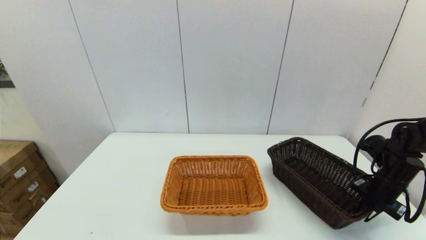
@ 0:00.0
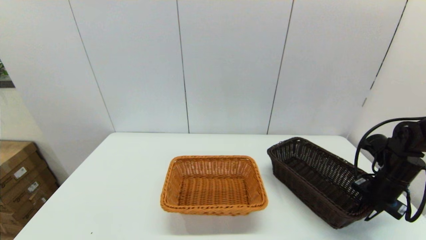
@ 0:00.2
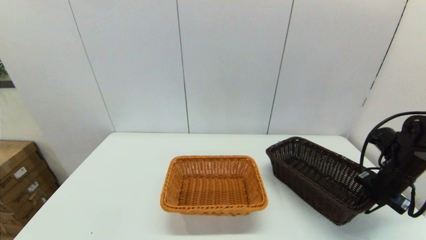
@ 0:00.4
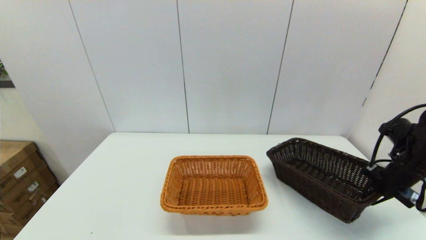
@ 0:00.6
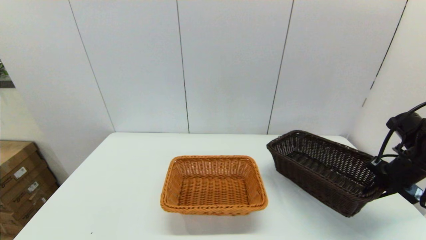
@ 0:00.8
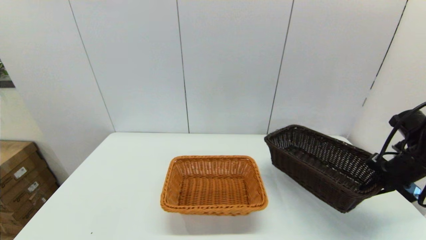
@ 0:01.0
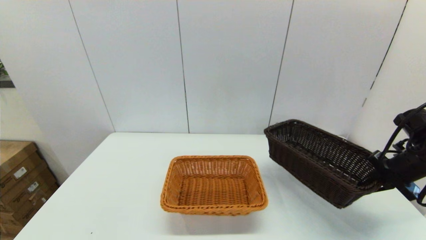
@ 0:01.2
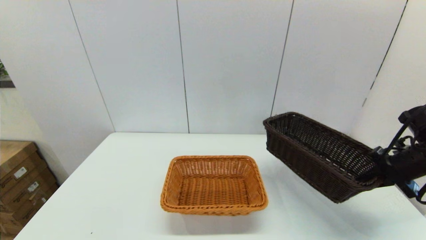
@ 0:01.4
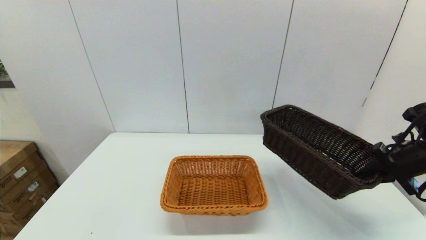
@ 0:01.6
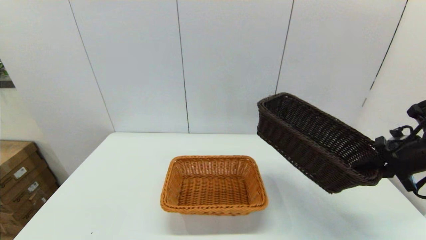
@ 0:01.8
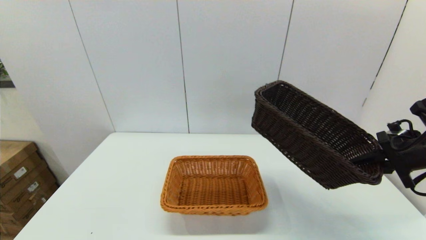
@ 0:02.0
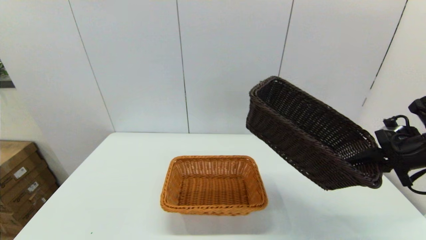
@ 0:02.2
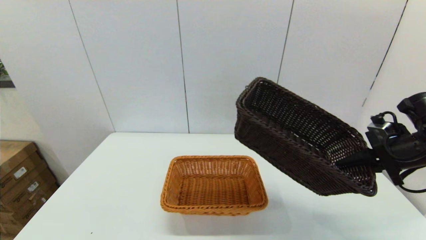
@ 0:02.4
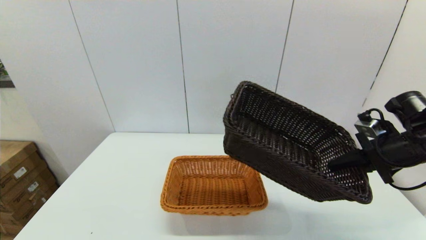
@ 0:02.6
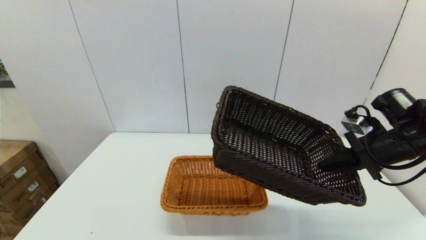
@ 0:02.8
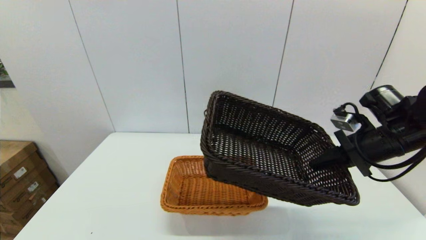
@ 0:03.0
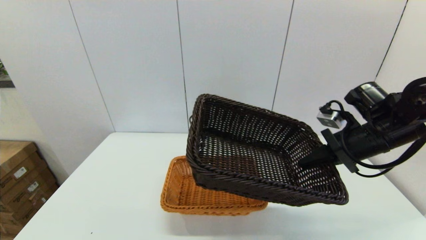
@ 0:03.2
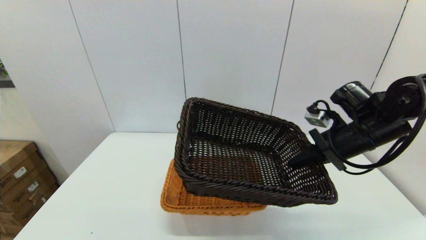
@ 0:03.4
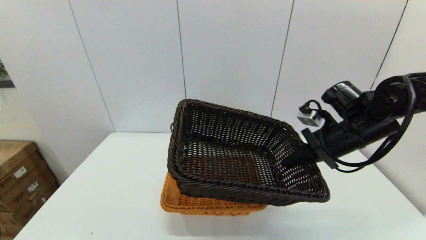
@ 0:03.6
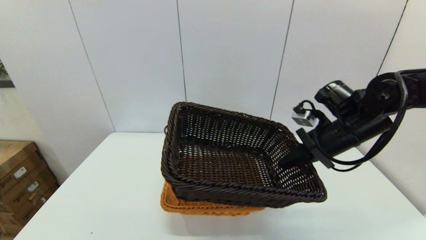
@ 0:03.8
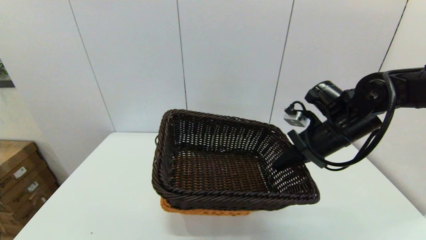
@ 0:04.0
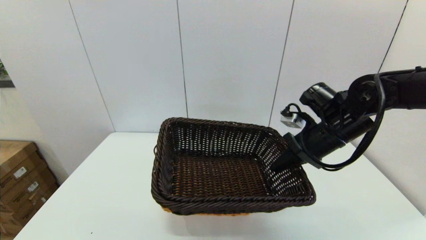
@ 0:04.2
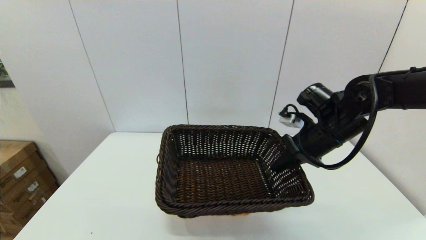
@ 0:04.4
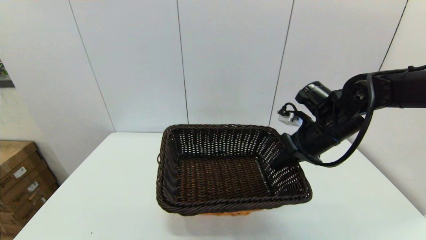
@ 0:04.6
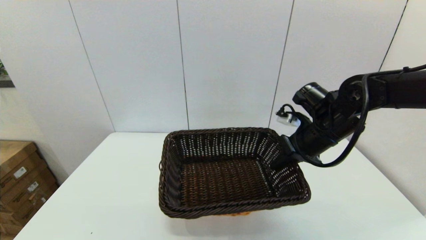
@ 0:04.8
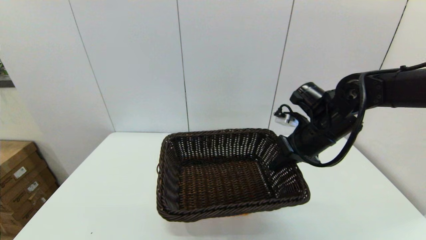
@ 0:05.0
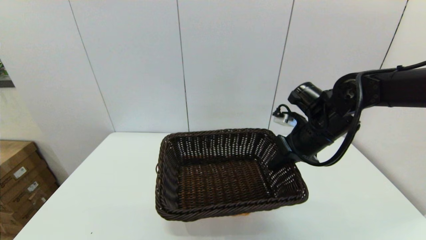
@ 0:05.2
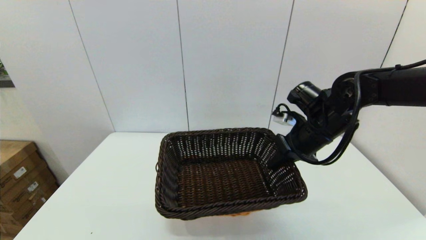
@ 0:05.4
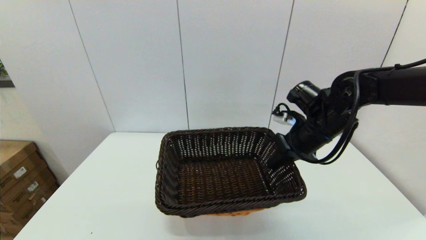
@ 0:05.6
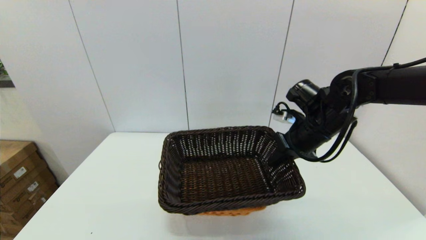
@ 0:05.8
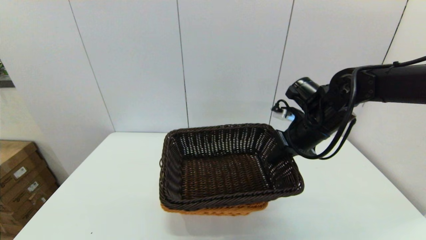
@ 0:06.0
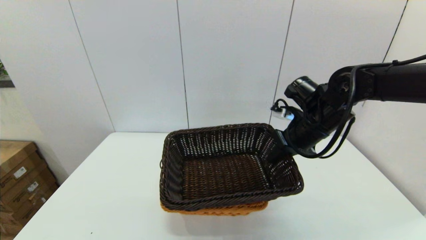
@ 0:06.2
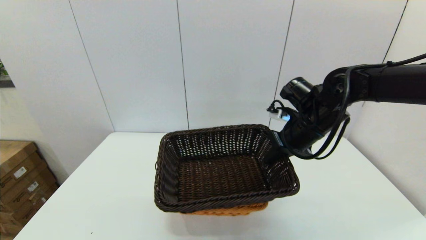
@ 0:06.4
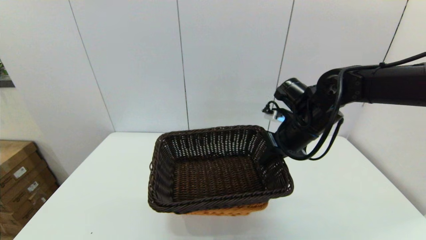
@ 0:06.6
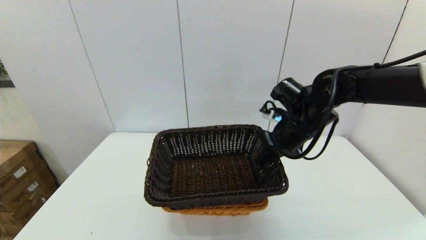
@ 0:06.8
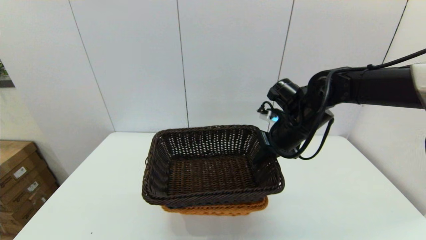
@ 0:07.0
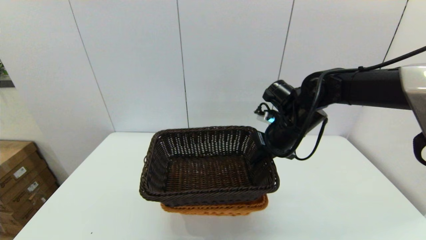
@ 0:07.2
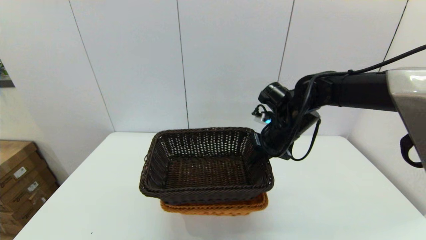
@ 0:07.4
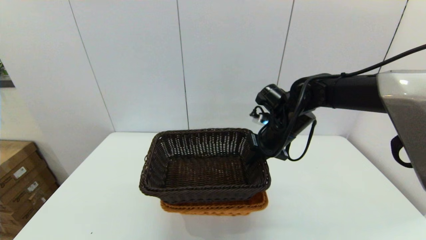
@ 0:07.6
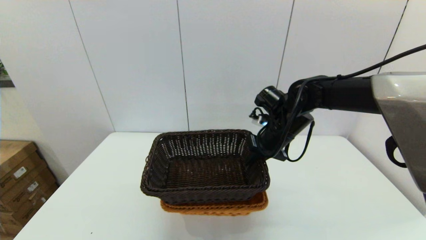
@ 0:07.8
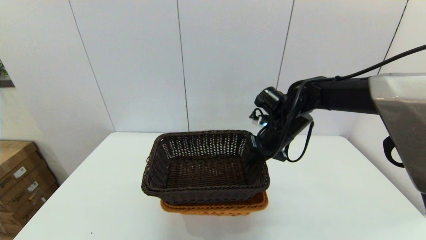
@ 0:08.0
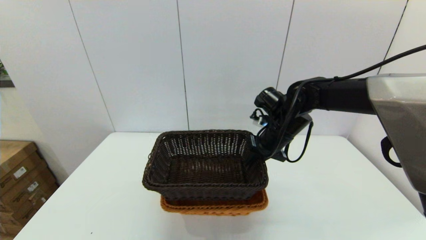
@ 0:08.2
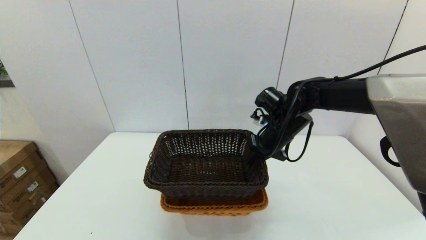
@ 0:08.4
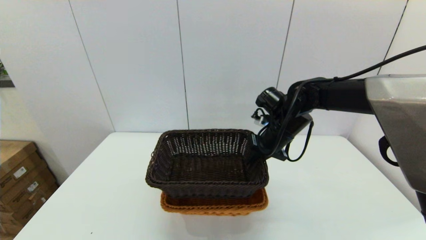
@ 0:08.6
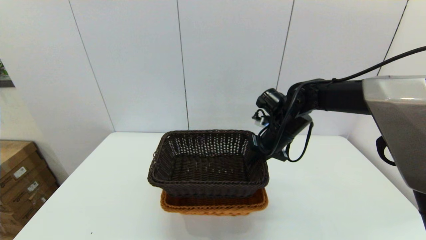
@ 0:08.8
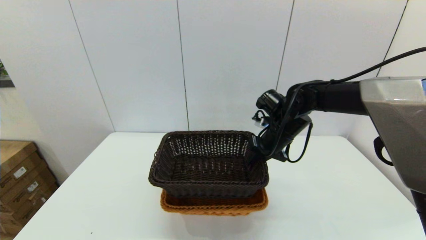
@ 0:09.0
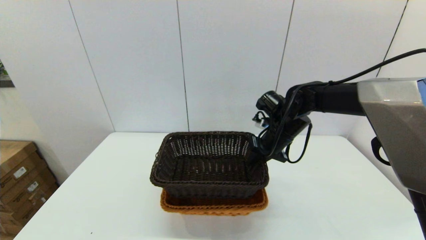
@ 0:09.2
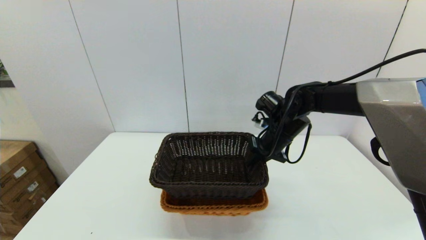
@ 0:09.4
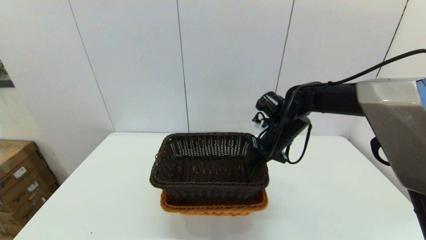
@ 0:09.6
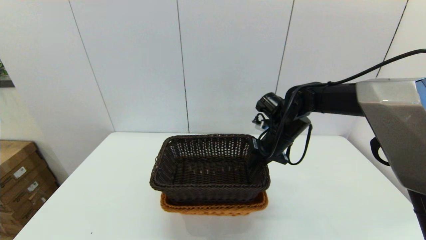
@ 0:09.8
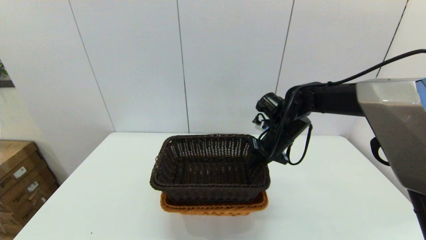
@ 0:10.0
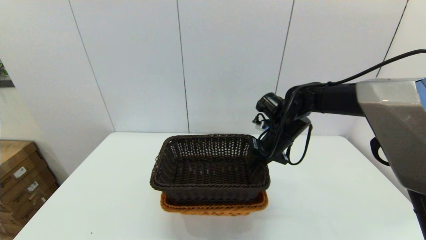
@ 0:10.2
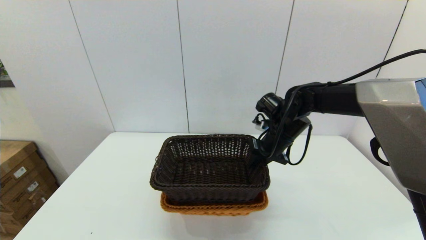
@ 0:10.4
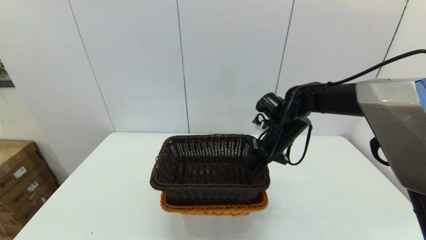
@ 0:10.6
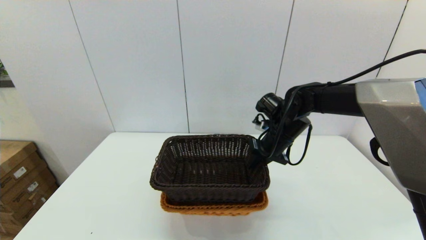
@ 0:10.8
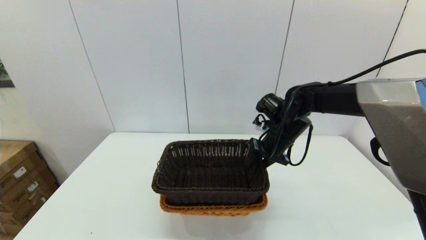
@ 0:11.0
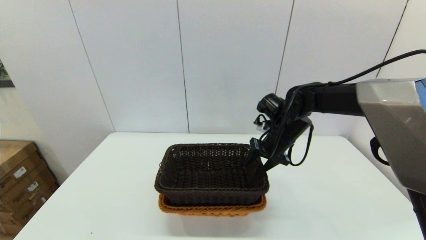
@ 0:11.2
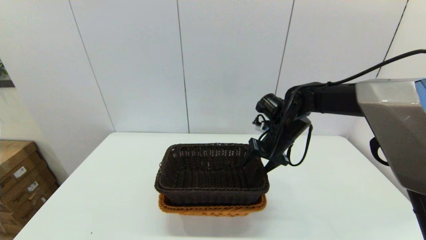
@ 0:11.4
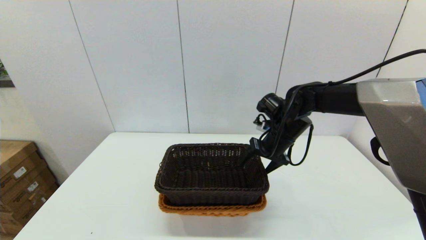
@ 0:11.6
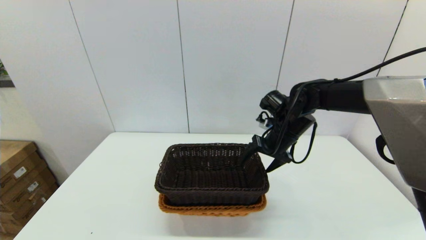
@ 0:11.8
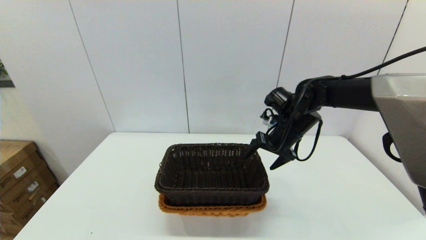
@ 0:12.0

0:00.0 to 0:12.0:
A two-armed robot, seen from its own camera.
Task of the whole recording: stack a basket on top of another basket.
Step, 0:00.2 to 0:12.0: Place the dark basket into the light color basket with the right gripper.
0:00.0 to 0:01.6: The right gripper shifts roughly 10 cm upward.
0:01.6 to 0:03.0: The right gripper travels to the left by about 10 cm.
0:03.0 to 0:04.4: The right gripper goes roughly 10 cm to the left.
0:04.4 to 0:06.0: There are only small adjustments of the grippers.
0:06.0 to 0:07.6: The right gripper goes some 5 cm to the left.
0:07.6 to 0:09.0: The grippers stay close to where they were, moving slightly.
0:09.0 to 0:10.4: Both grippers stay put.
0:10.4 to 0:12.0: The right gripper opens.

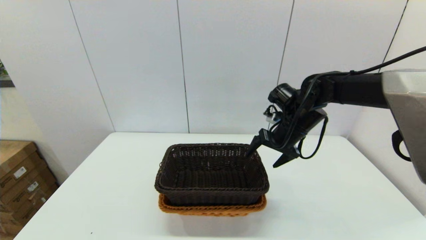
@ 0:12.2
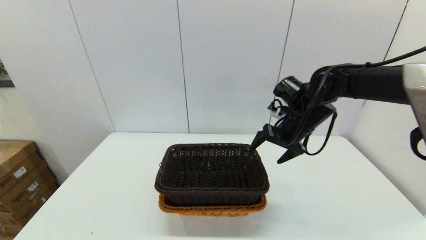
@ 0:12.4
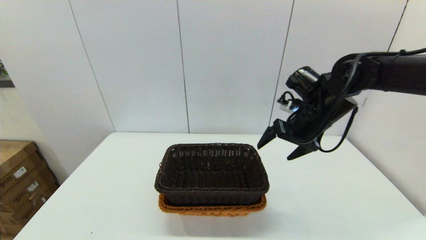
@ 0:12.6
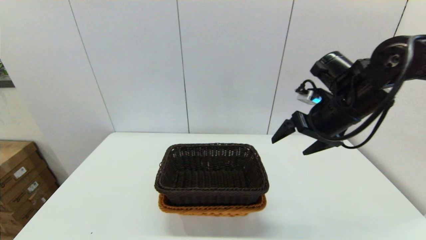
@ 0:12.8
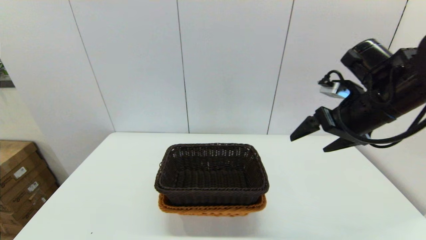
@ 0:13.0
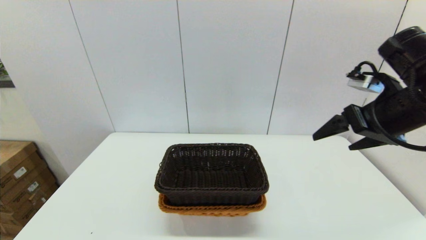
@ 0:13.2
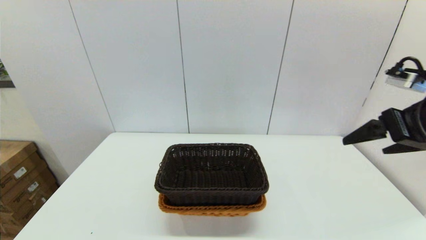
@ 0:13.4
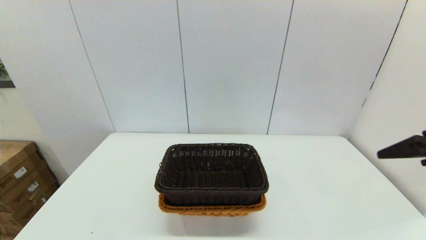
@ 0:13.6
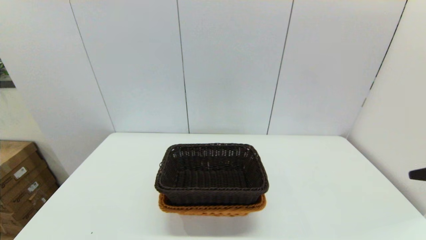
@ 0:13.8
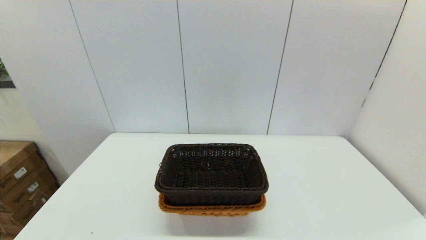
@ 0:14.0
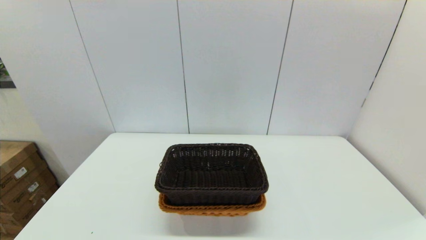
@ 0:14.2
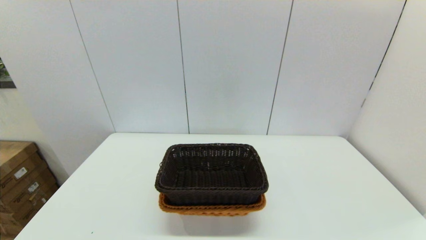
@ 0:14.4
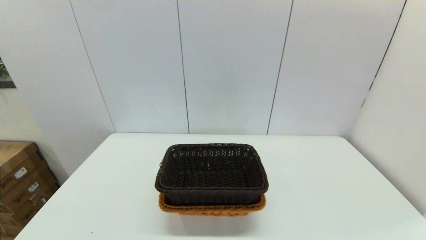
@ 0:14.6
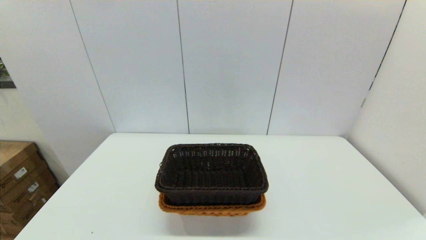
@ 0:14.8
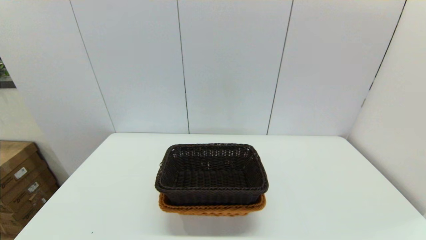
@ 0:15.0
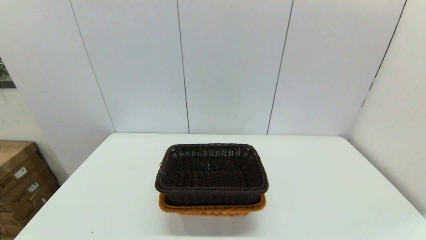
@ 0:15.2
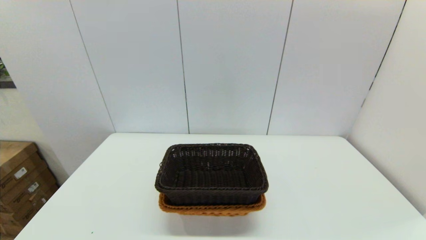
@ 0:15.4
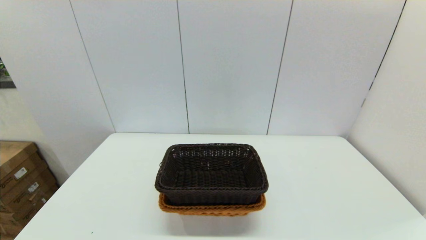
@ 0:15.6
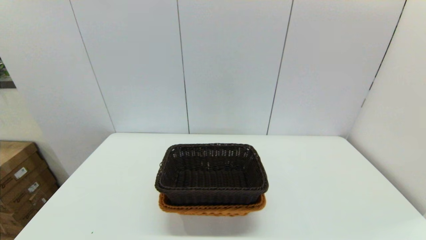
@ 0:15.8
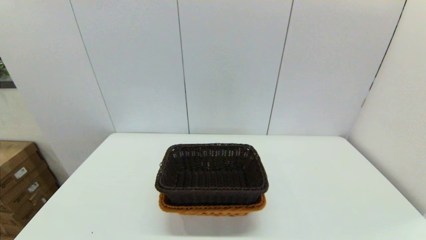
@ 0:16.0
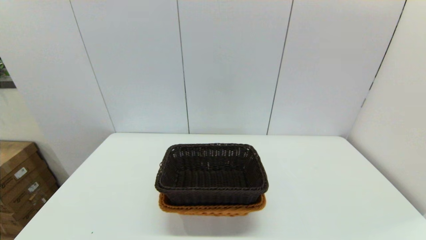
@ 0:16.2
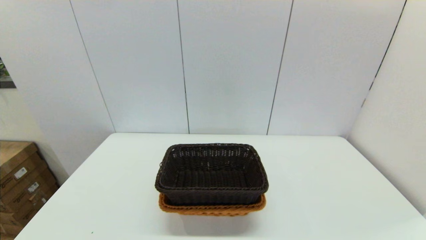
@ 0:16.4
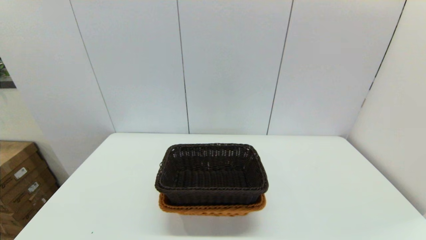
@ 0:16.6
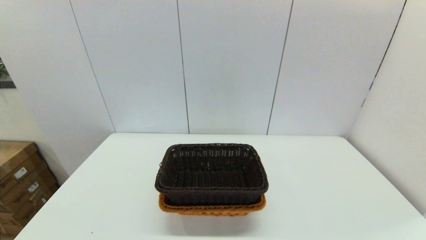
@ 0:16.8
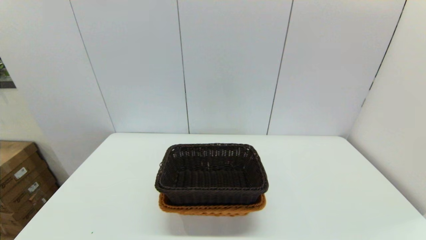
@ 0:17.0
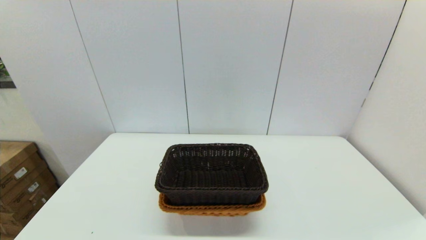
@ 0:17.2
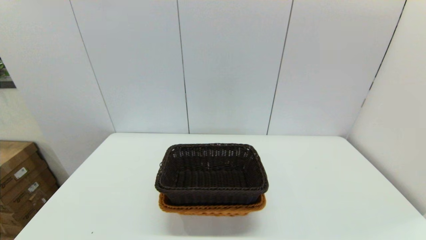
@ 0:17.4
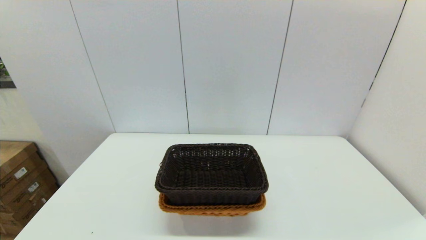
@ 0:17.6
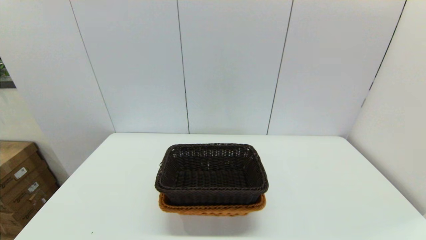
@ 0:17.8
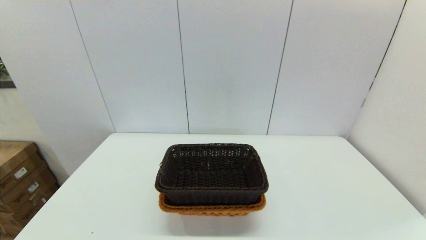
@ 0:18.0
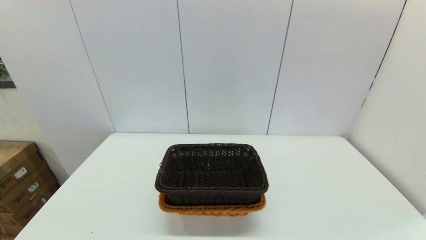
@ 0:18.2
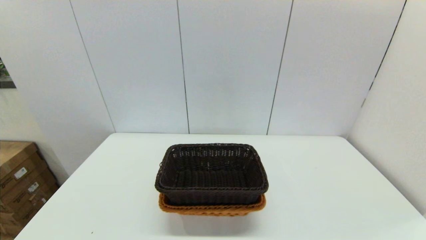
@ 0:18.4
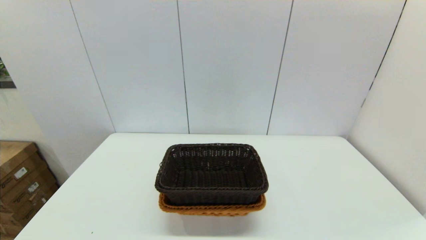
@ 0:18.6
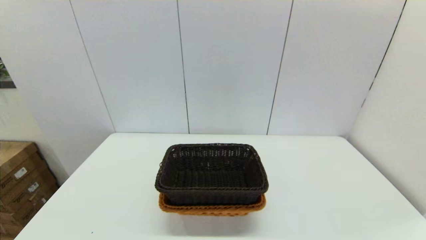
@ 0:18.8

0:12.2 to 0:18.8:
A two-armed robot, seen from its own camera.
Task of the whole recording: stack a basket on top of another basket.
0:12.2 to 0:13.8: The right gripper is displaced backward, to the right and upward by about 35 cm.
0:17.2 to 0:18.8: Both grippers stay about where they are.
